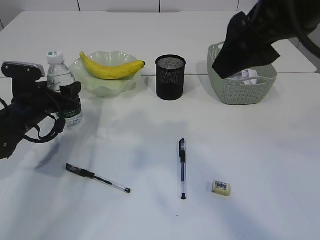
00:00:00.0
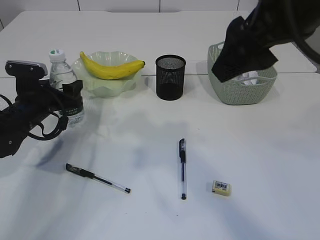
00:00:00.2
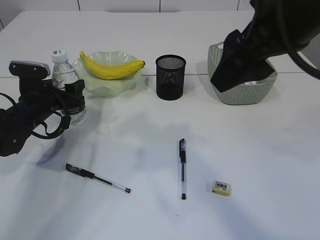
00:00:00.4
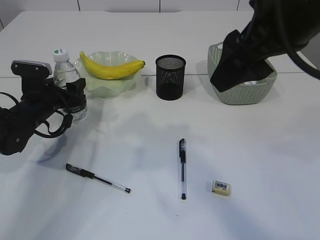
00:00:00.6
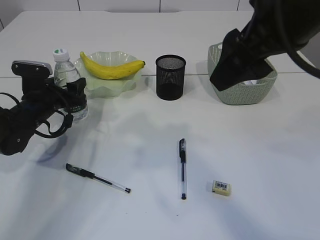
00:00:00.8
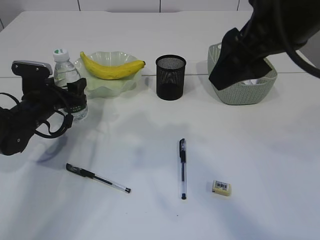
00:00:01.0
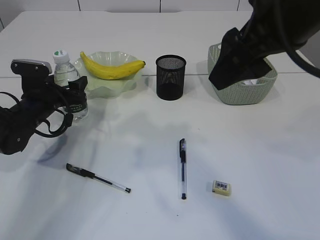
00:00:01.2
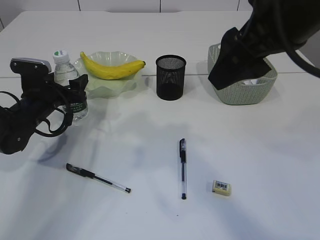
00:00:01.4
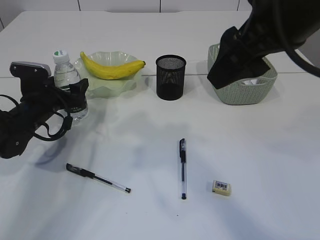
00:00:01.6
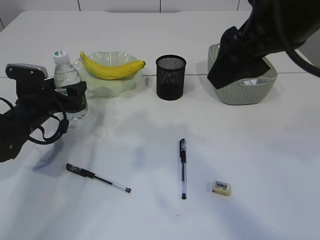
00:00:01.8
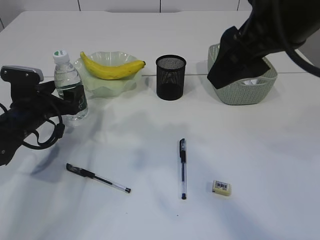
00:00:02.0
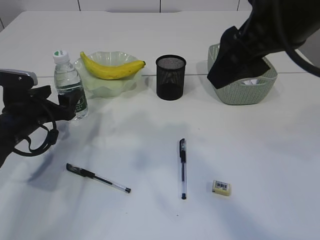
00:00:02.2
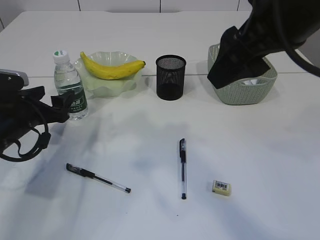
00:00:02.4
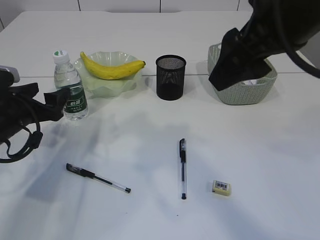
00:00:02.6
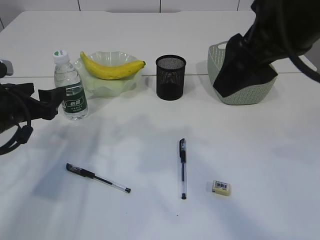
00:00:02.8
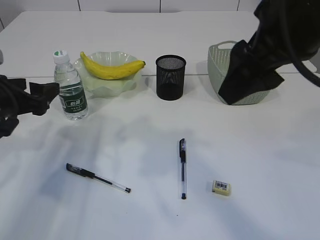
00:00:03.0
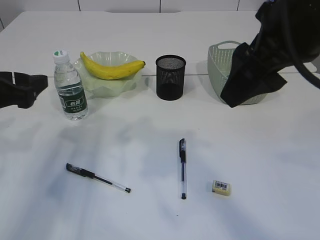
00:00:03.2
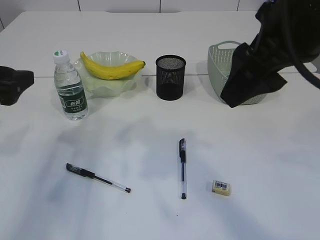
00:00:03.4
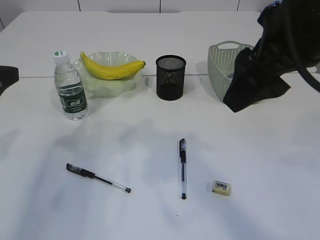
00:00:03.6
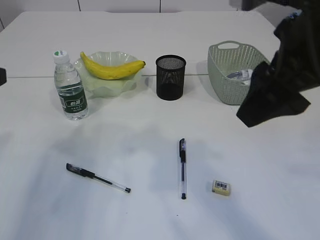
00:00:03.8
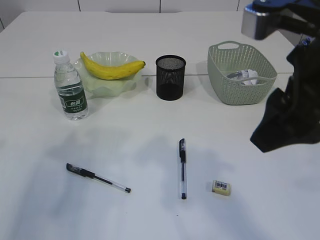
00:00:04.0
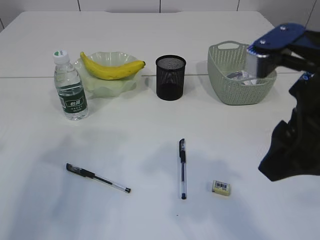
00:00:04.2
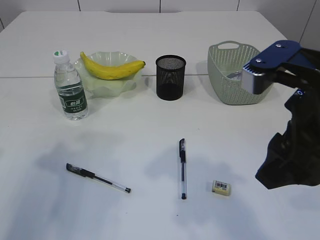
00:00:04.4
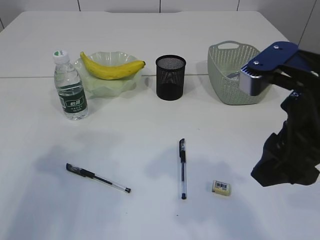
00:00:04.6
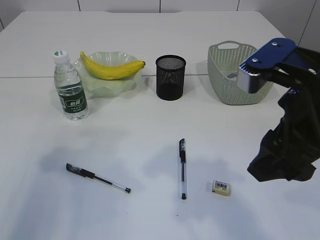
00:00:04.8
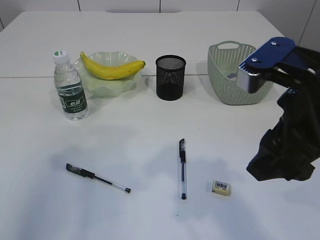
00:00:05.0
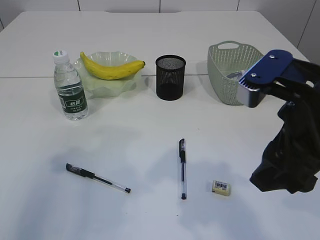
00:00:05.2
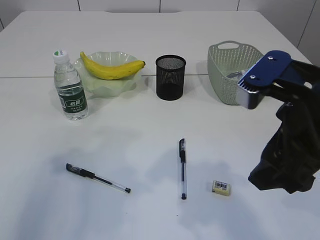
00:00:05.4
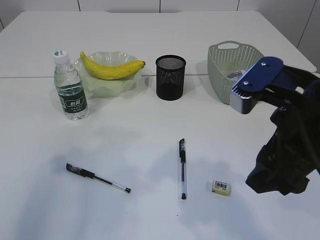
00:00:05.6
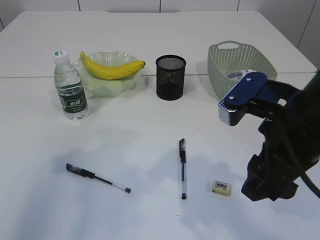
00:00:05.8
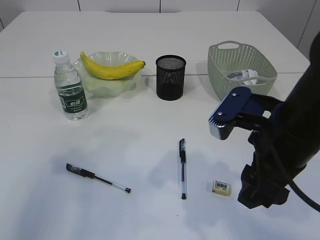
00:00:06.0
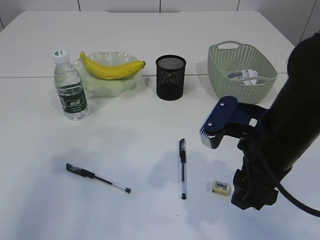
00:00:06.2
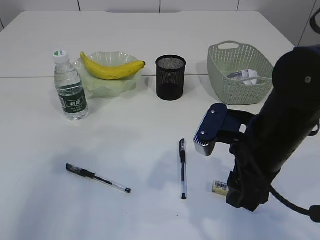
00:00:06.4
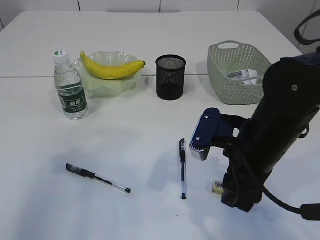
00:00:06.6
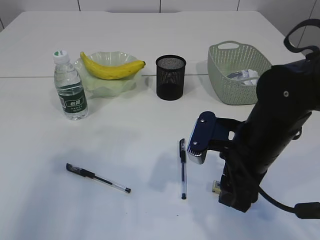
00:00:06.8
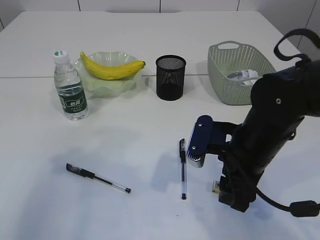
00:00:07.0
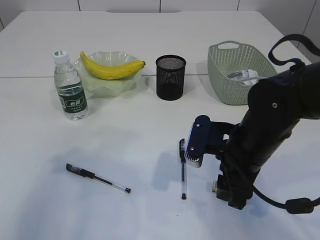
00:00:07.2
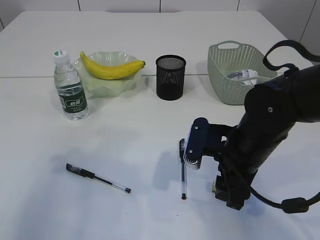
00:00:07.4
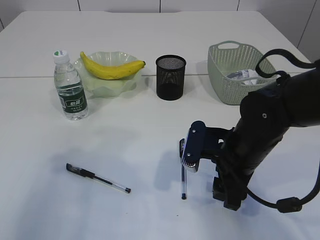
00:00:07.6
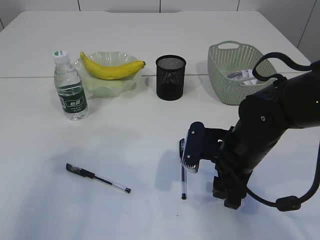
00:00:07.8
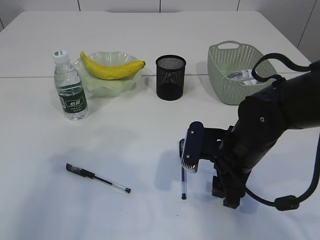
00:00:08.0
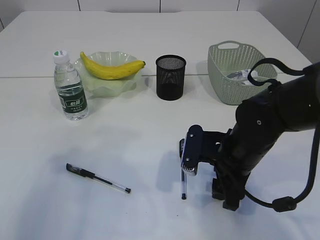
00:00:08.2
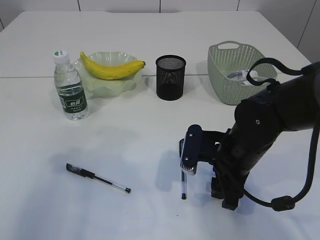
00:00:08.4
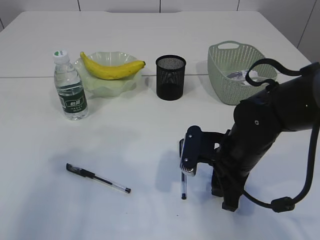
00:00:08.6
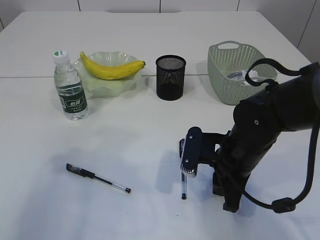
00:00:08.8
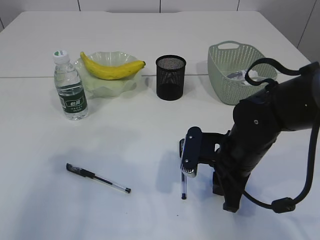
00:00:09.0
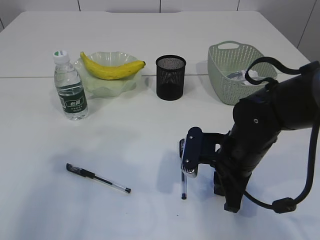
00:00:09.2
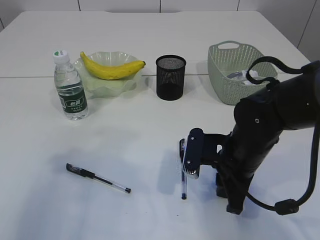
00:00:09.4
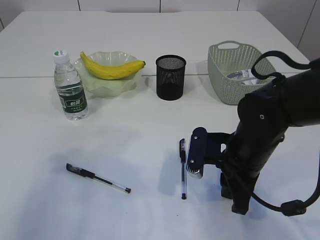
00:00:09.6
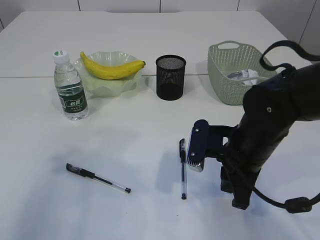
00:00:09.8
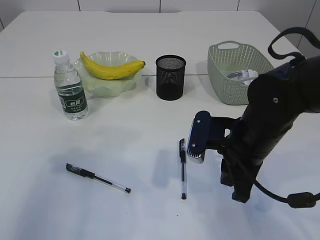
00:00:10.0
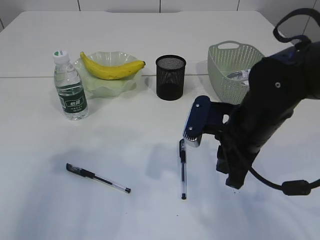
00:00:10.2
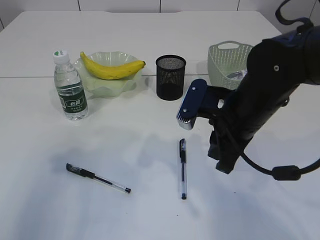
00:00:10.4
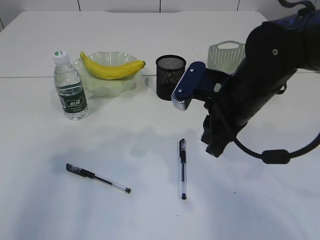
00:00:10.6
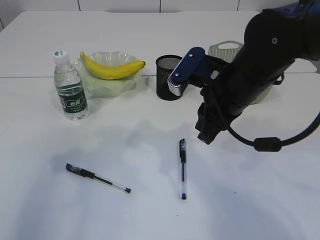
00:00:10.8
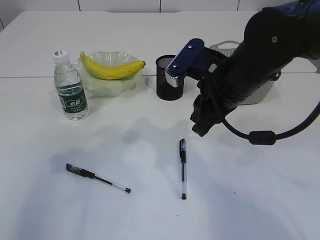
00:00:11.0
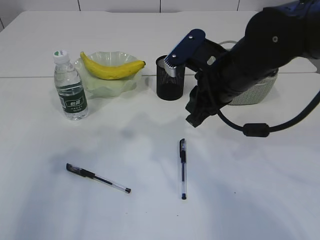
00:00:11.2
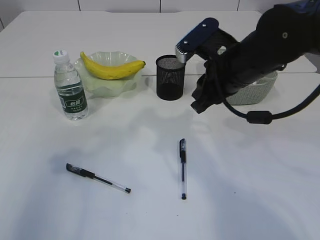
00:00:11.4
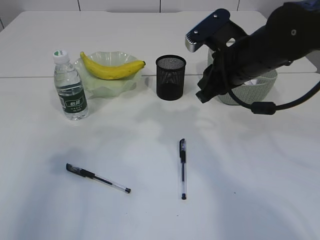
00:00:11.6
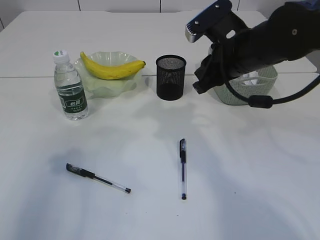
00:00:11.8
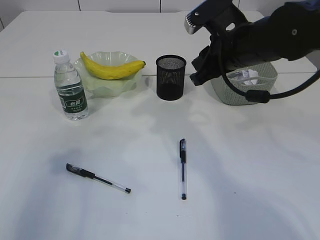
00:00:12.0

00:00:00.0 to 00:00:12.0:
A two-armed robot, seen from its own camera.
Step, 00:00:00.0 to 00:00:03.0: Place the bottle.
Step, 00:00:03.2 to 00:00:10.2: Pick up the eraser.
00:00:00.0 to 00:00:01.6: The grippers move only a little.
00:00:01.6 to 00:00:03.0: The left gripper moves backward and upward, about 15 cm.
00:00:03.0 to 00:00:04.4: The left gripper goes about 15 cm backward and upward. Meanwhile the right gripper goes about 5 cm downward.
00:00:04.4 to 00:00:06.0: The right gripper moves downward, roughly 5 cm.
00:00:06.0 to 00:00:07.6: The right gripper travels downward and forward by roughly 10 cm.
00:00:07.6 to 00:00:09.0: The right gripper closes.
00:00:09.0 to 00:00:10.4: The right gripper goes some 10 cm upward.
00:00:10.4 to 00:00:12.0: The right gripper travels forward and upward by approximately 10 cm.

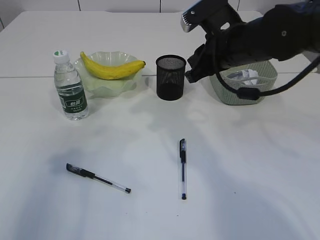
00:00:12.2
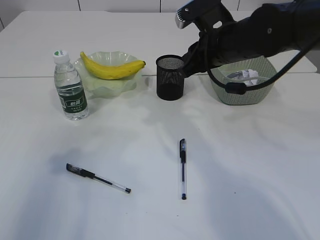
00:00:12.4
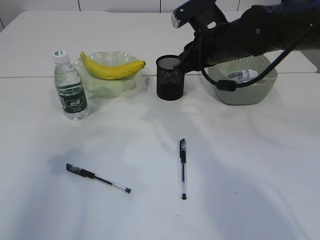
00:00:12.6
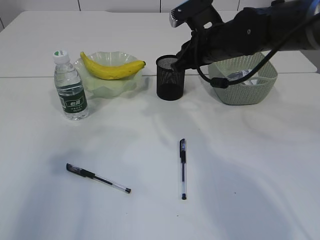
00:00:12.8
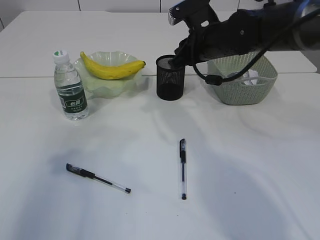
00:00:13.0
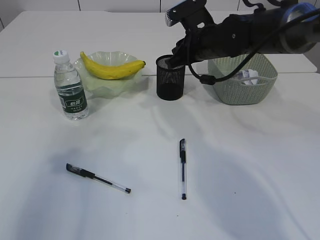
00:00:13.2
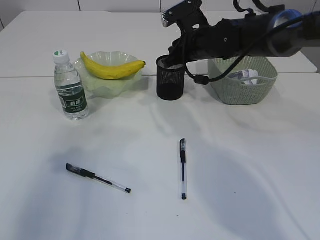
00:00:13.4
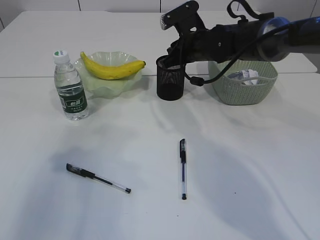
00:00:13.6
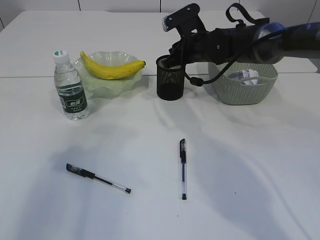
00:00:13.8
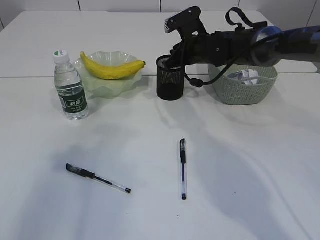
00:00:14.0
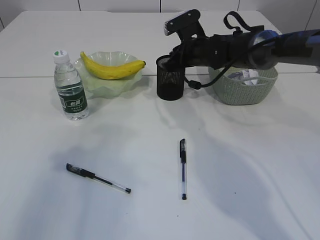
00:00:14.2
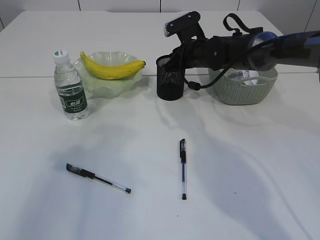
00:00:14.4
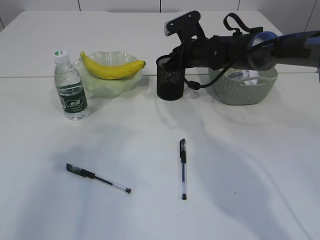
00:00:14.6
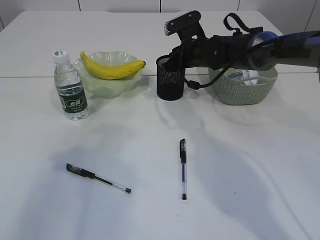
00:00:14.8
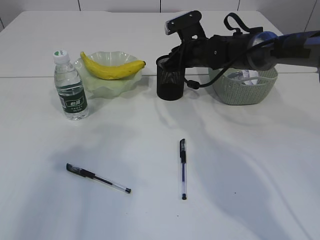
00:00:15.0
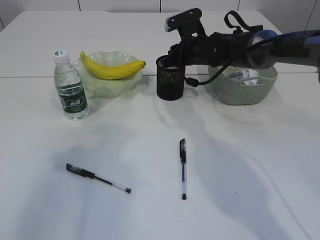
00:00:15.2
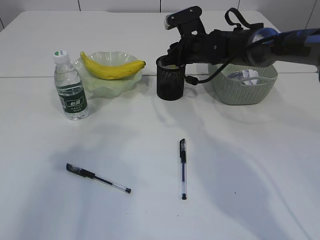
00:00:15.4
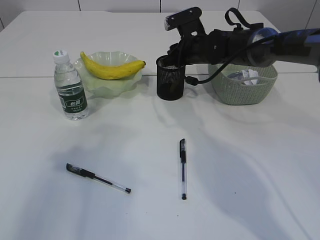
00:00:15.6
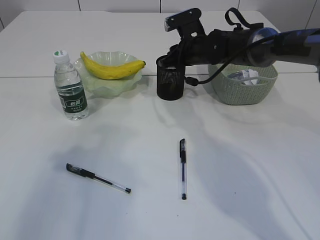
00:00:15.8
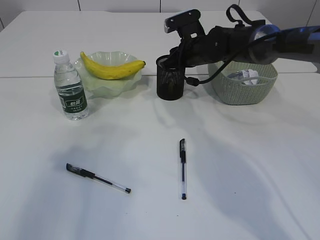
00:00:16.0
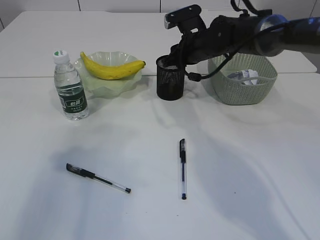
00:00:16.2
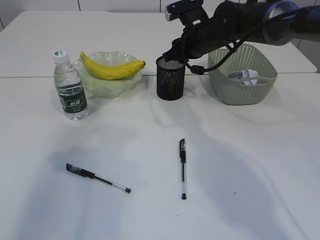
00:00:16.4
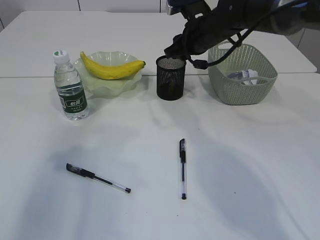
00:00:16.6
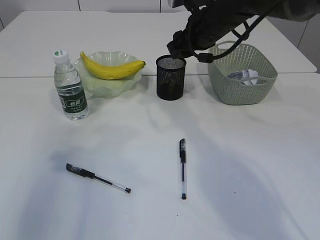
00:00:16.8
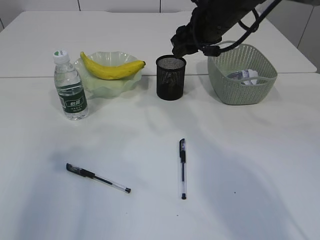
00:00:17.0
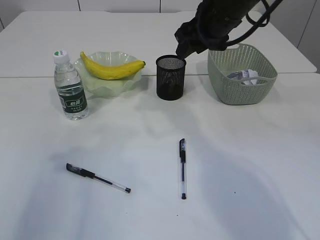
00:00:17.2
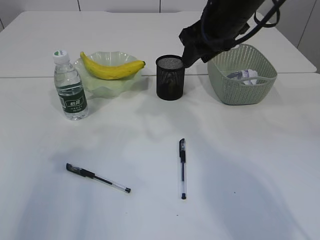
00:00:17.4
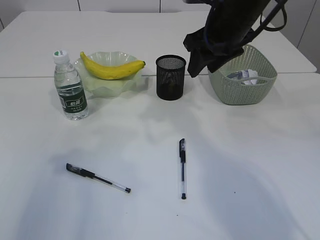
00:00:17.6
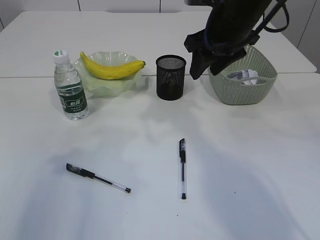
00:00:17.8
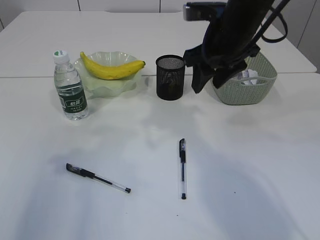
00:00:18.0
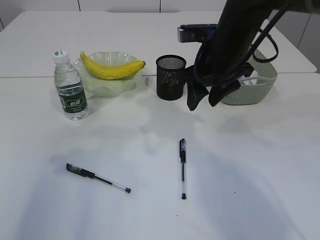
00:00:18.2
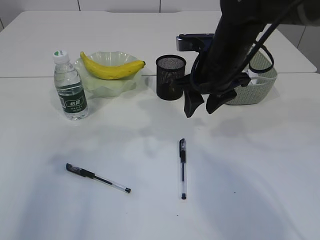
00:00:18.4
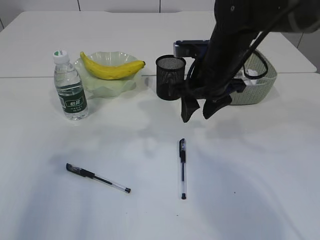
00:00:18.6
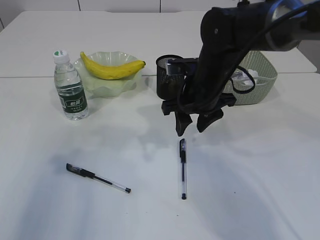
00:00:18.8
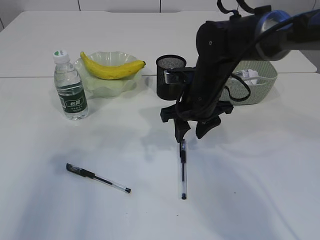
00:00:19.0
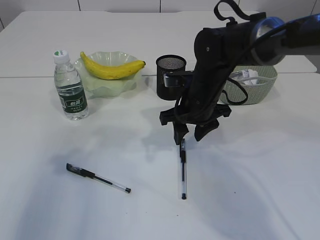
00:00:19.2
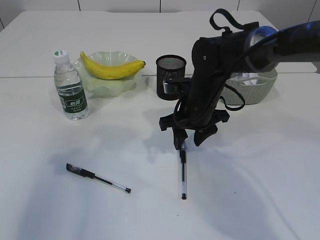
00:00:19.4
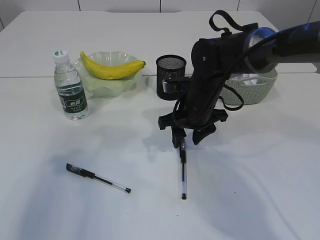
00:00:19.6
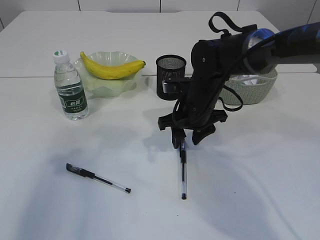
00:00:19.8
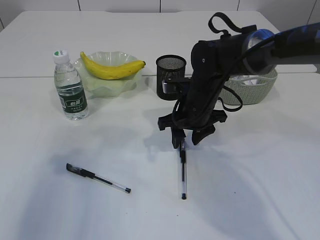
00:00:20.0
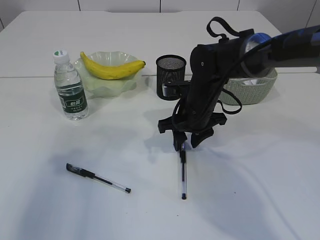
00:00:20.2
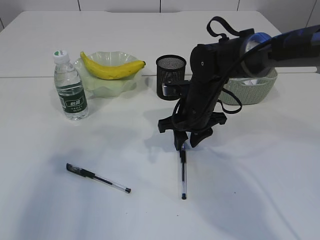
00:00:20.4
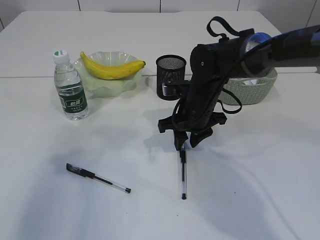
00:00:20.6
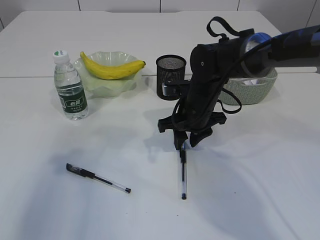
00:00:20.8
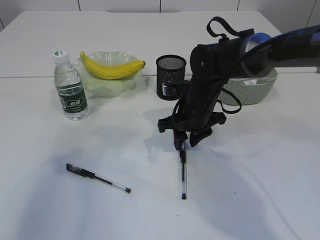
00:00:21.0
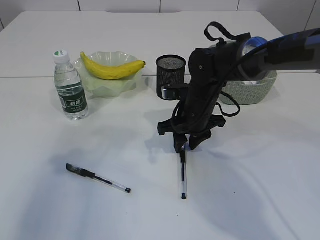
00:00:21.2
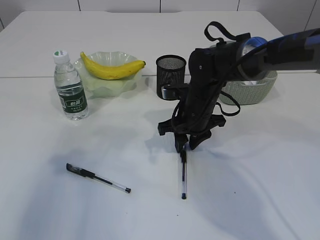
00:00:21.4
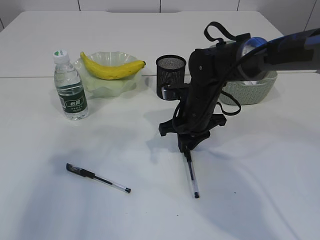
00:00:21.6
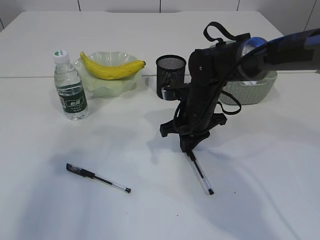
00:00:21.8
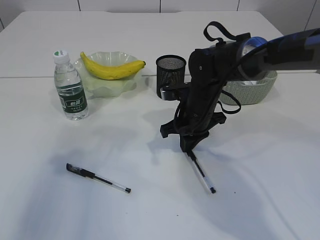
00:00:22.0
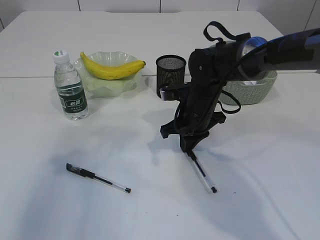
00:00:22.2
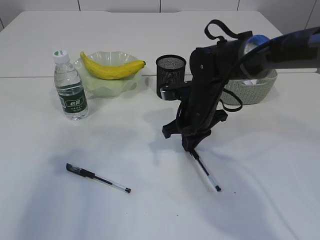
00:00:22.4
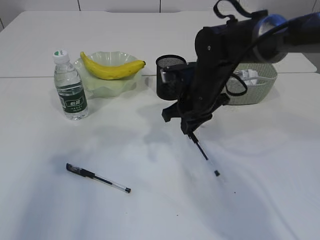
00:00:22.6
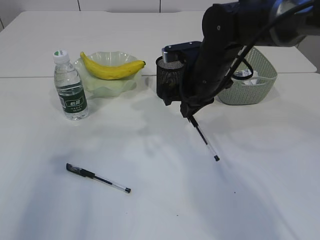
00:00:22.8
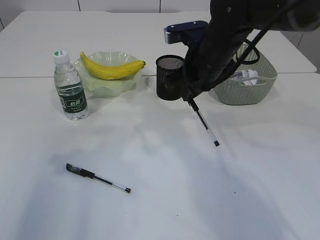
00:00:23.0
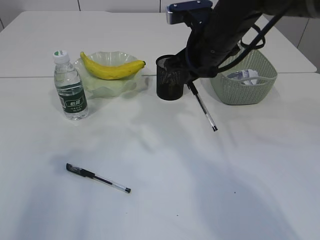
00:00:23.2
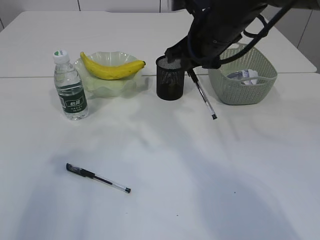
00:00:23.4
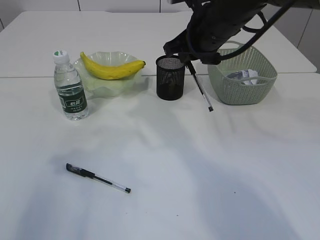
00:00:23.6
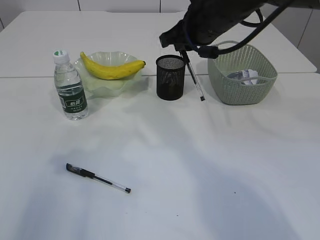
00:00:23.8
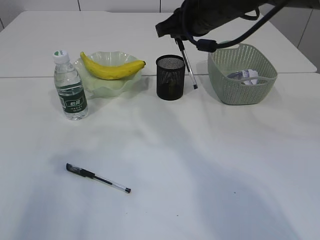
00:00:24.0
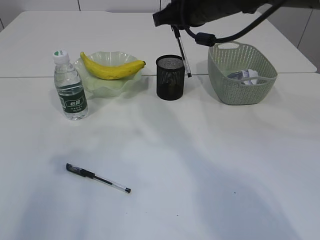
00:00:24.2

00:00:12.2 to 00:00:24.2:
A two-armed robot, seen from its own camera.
Step, 00:00:12.2 to 00:00:16.6: Place the eraser into the pen holder.
Step, 00:00:16.8 to 00:00:22.6: Pick up the pen with right arm.
00:00:12.2 to 00:00:13.8: The right gripper heads forward and downward, covering approximately 15 cm.
00:00:13.8 to 00:00:15.2: The grippers make only small movements.
00:00:15.2 to 00:00:16.6: The right gripper shifts about 5 cm upward.
00:00:16.6 to 00:00:18.2: The right gripper goes approximately 10 cm backward.
00:00:18.2 to 00:00:19.8: The right gripper heads downward, covering roughly 10 cm.
00:00:19.8 to 00:00:21.2: The grippers move only a little.
00:00:21.2 to 00:00:22.6: The right gripper closes up.
00:00:22.6 to 00:00:24.2: The right gripper is displaced upward by some 15 cm.
